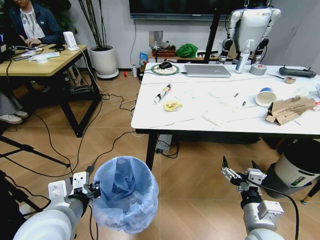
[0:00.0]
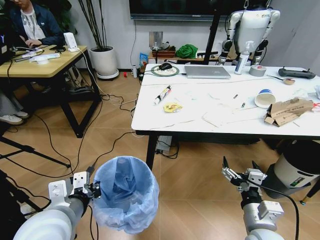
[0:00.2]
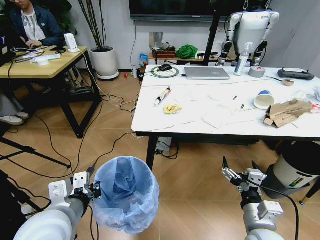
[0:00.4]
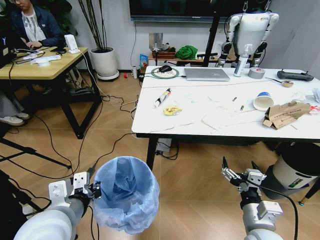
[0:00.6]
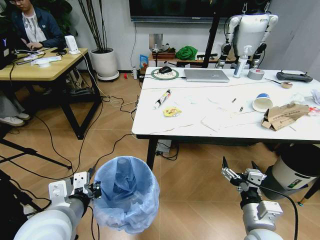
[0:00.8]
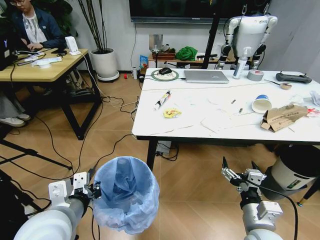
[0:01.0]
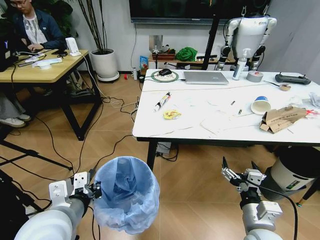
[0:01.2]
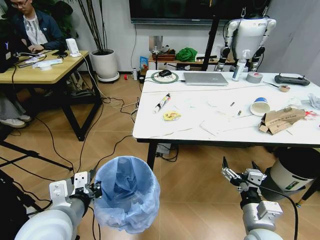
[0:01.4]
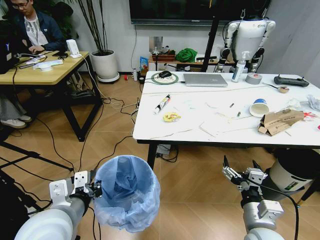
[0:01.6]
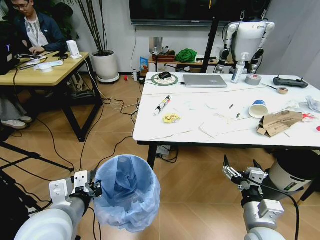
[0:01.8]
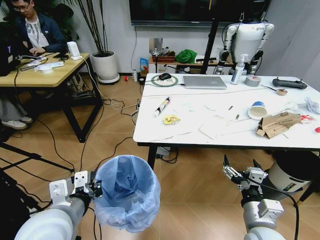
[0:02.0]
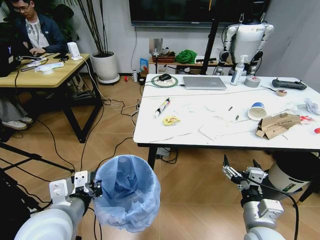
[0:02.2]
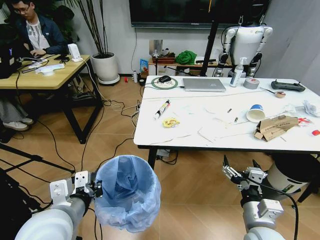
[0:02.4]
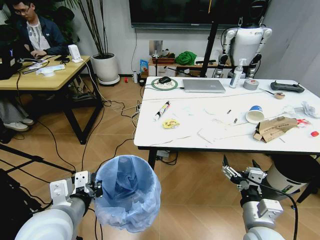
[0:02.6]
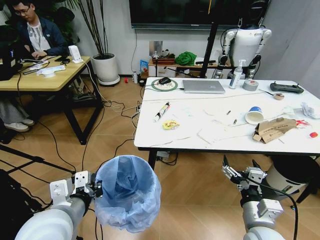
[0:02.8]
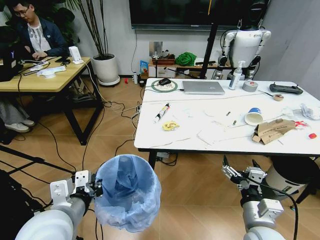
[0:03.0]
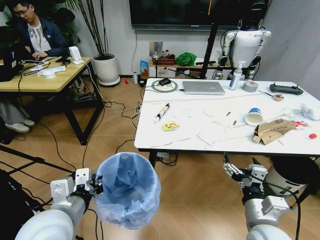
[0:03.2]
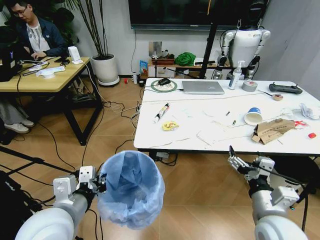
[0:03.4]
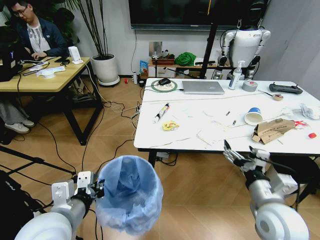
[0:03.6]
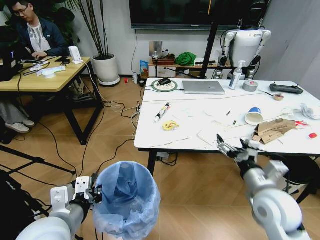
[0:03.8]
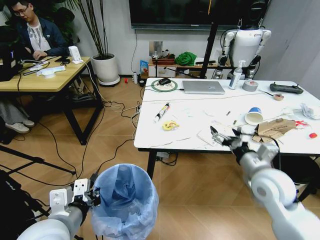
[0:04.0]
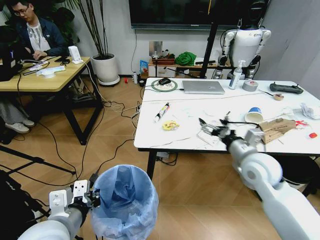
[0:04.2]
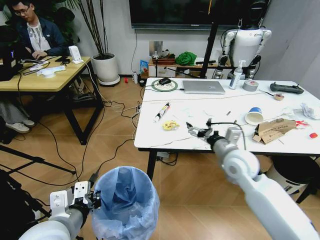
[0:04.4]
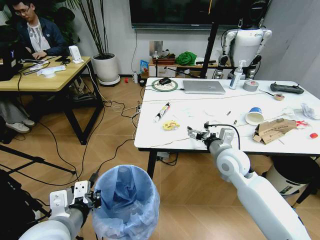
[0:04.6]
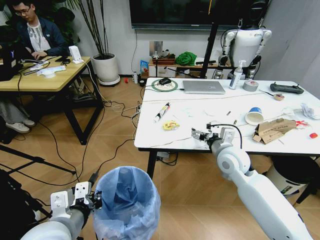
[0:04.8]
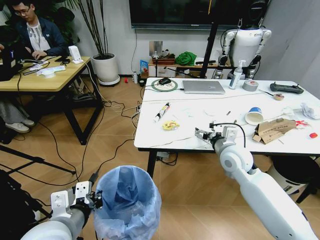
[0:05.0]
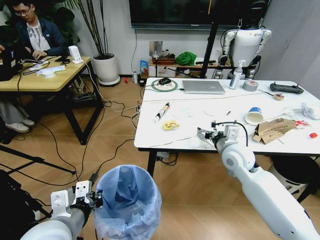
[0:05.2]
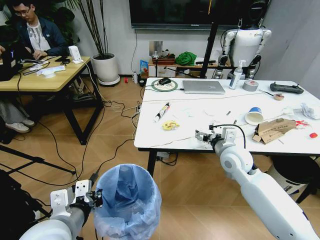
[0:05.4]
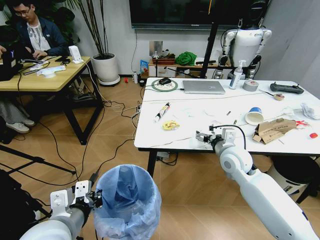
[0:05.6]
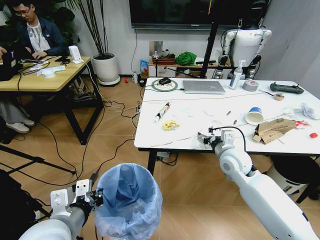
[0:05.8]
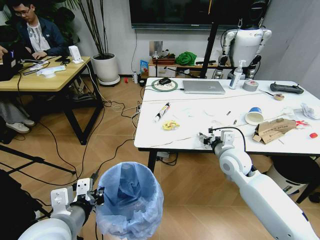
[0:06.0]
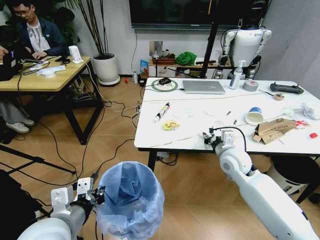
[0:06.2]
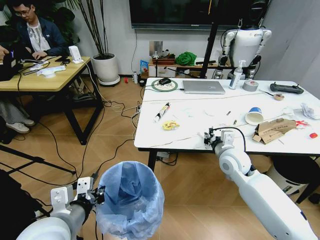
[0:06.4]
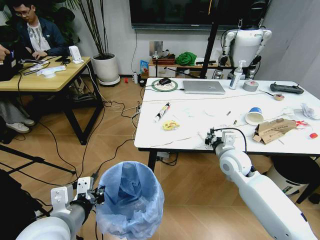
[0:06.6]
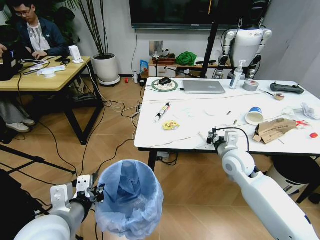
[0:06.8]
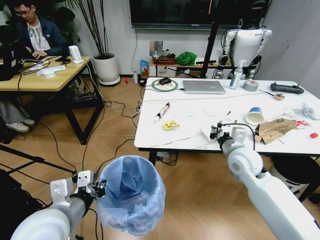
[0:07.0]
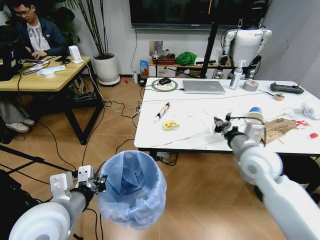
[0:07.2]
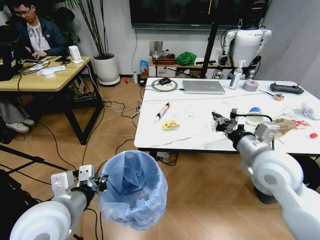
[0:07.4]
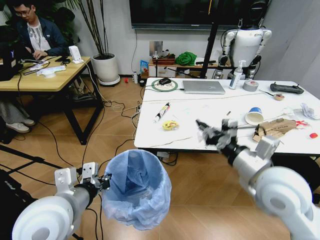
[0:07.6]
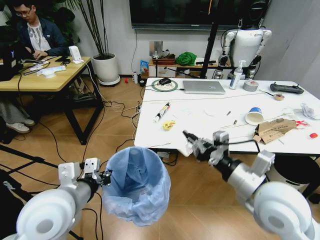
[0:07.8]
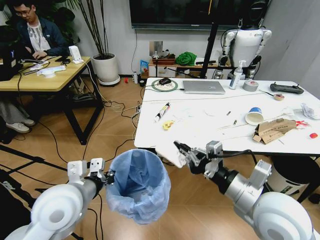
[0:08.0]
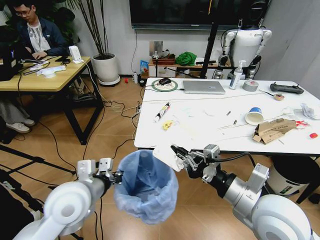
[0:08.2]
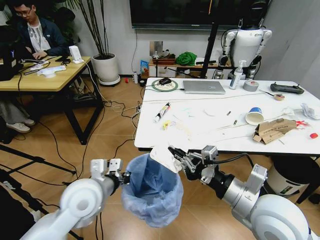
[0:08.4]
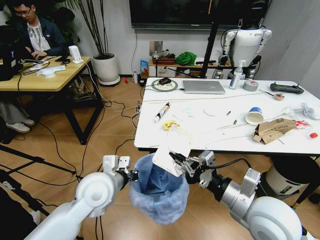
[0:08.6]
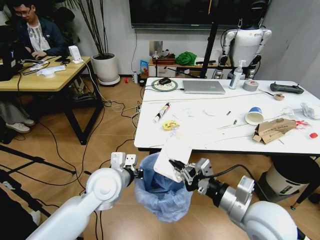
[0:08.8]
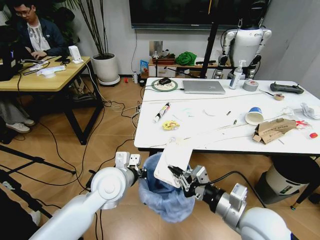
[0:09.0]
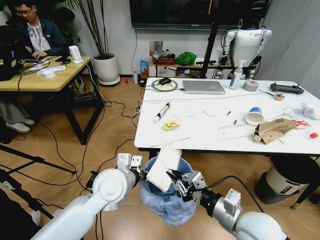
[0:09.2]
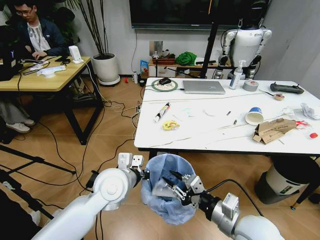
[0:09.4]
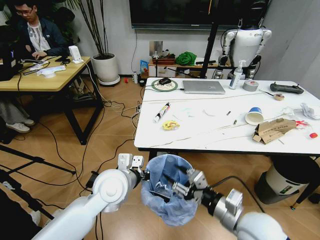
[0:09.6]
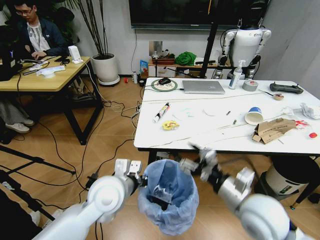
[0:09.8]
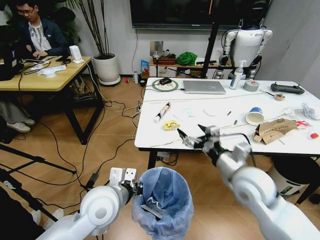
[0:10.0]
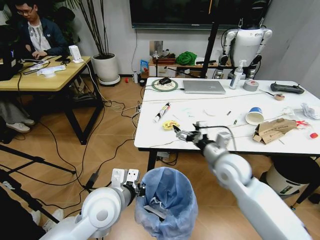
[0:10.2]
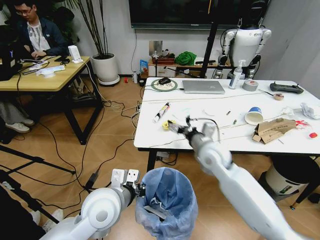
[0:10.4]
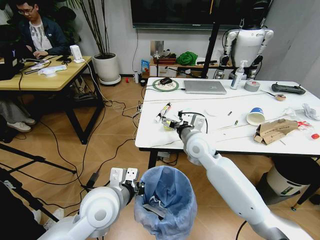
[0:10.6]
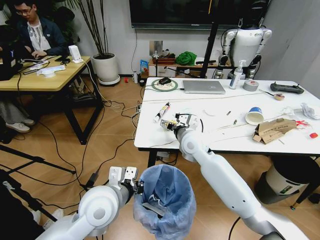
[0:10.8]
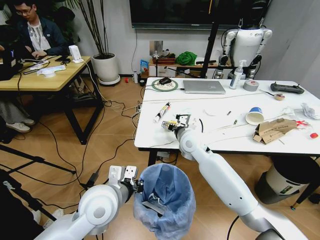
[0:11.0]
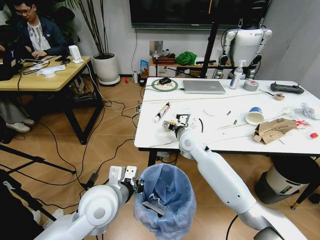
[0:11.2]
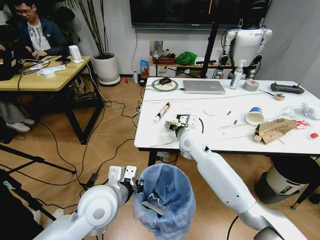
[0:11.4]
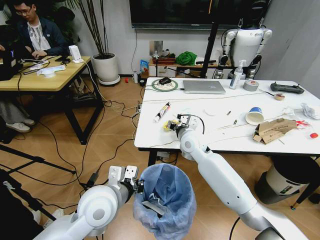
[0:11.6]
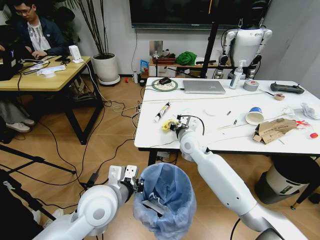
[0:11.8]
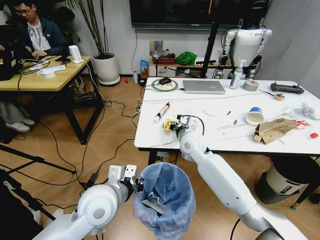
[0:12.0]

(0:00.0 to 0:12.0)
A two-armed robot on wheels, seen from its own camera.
Task of the whole recording: Pick up the trash bin and place the trash from the table into it.
0:03.0 - 0:04.4: The right gripper goes approximately 20 cm forward.
0:04.4 - 0:06.0: The right gripper closes.
0:06.0 - 0:07.6: The right gripper travels backward and upward by approximately 20 cm, and closes its fingers.
0:07.6 - 0:09.0: The right gripper travels downward and backward by about 10 cm, while the left gripper is displaced forward, to the right and downward by roughly 15 cm.
0:09.0 - 0:10.4: The left gripper moves backward, roughly 5 cm. The right gripper heads forward, covering some 20 cm, and opens up.
0:10.4 - 0:12.0: The right gripper goes roughly 5 cm forward, and closes up.

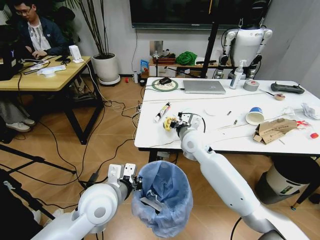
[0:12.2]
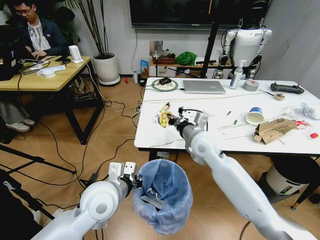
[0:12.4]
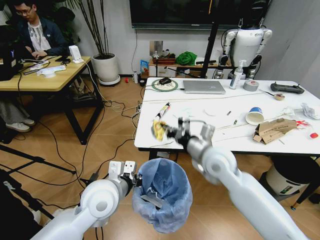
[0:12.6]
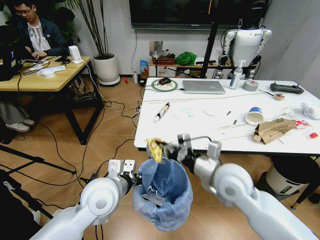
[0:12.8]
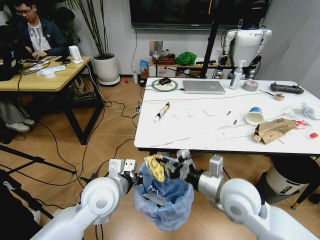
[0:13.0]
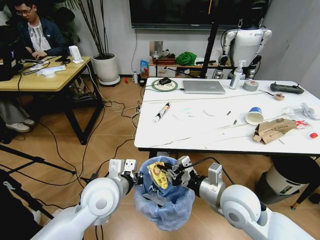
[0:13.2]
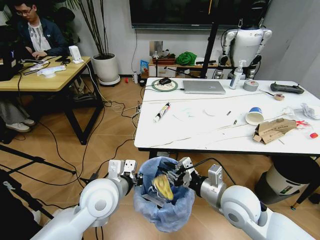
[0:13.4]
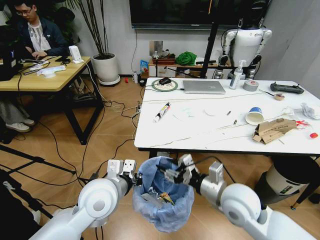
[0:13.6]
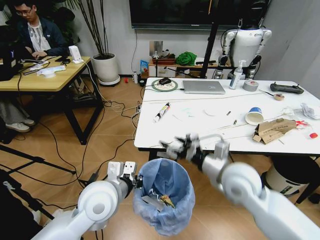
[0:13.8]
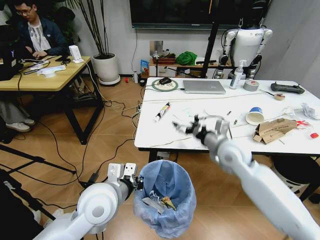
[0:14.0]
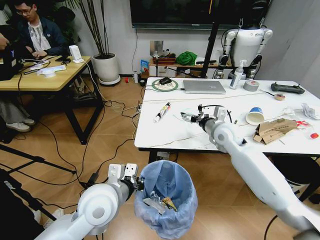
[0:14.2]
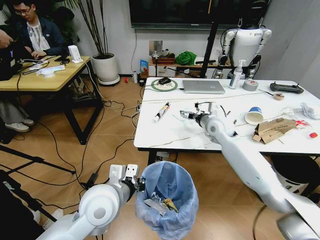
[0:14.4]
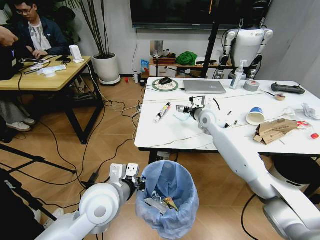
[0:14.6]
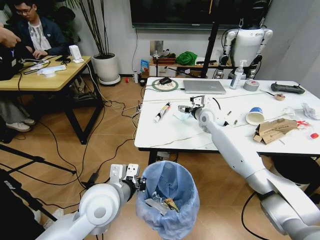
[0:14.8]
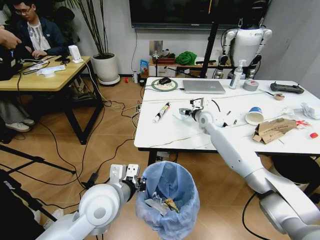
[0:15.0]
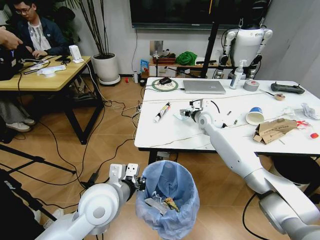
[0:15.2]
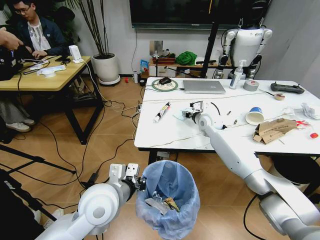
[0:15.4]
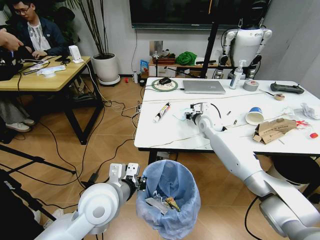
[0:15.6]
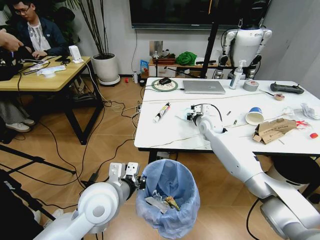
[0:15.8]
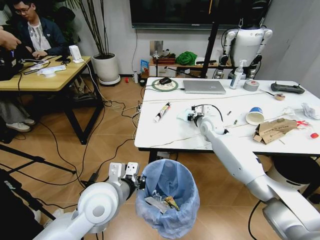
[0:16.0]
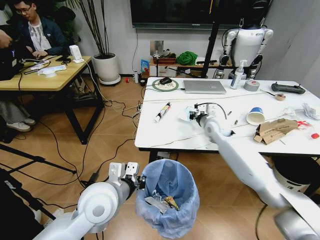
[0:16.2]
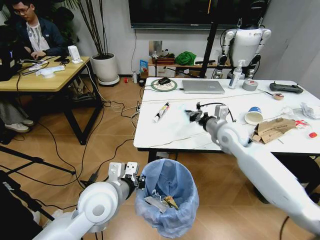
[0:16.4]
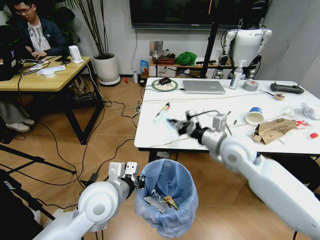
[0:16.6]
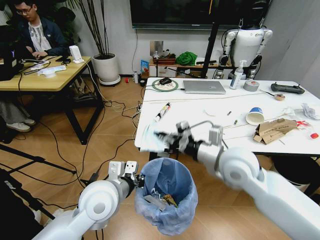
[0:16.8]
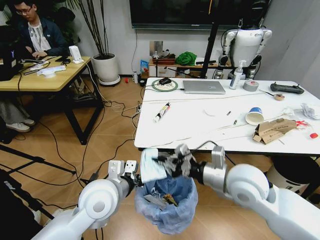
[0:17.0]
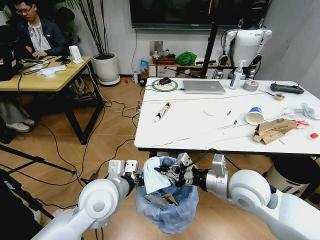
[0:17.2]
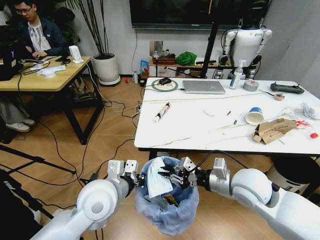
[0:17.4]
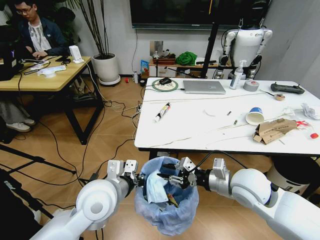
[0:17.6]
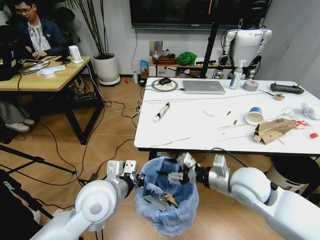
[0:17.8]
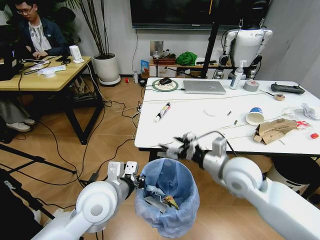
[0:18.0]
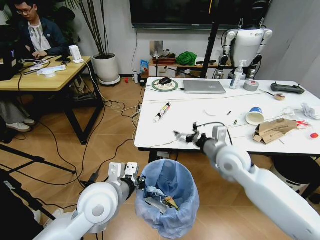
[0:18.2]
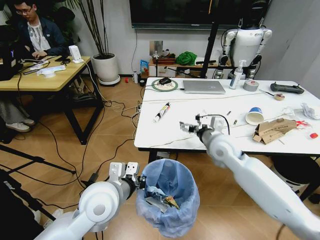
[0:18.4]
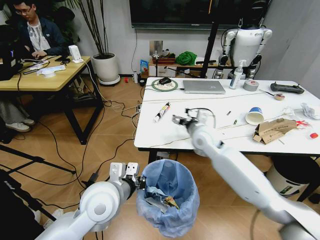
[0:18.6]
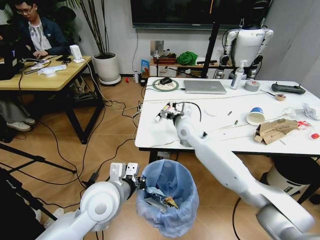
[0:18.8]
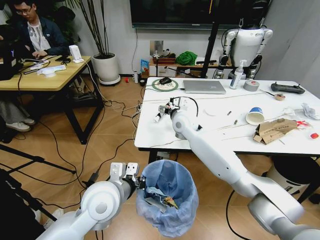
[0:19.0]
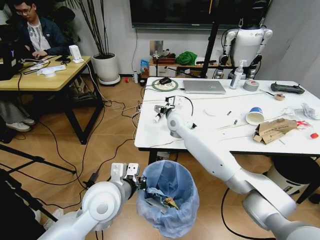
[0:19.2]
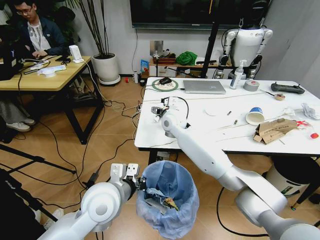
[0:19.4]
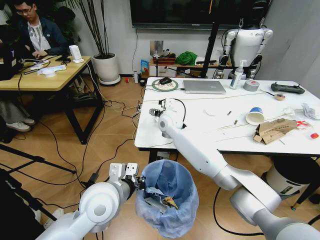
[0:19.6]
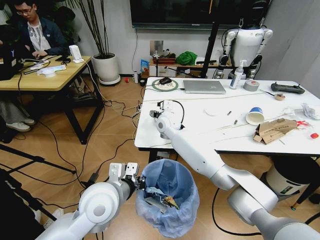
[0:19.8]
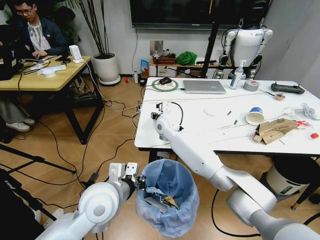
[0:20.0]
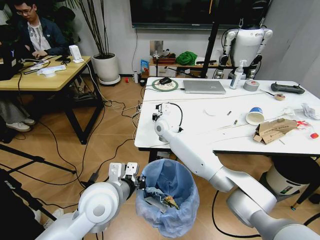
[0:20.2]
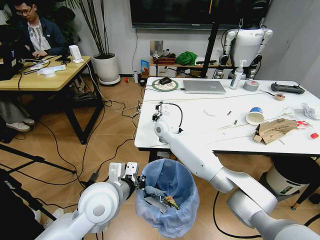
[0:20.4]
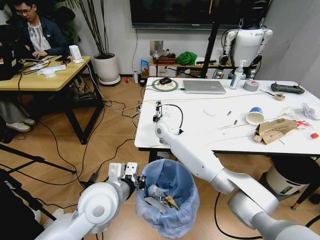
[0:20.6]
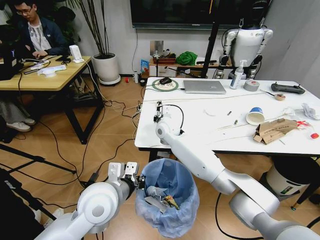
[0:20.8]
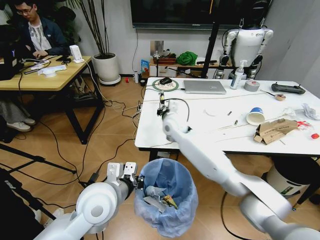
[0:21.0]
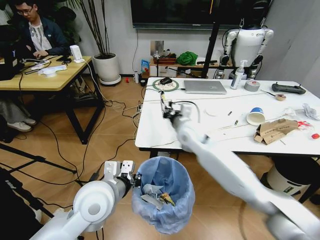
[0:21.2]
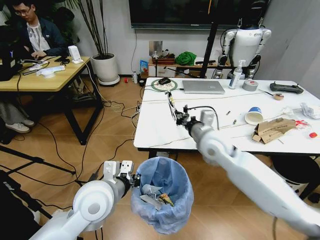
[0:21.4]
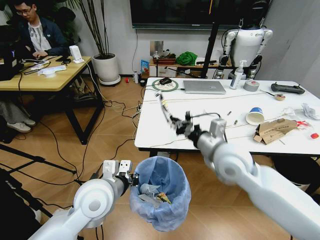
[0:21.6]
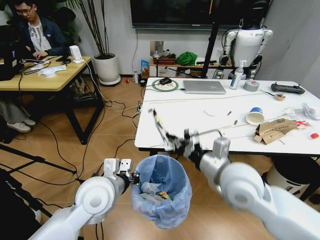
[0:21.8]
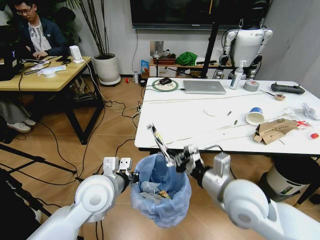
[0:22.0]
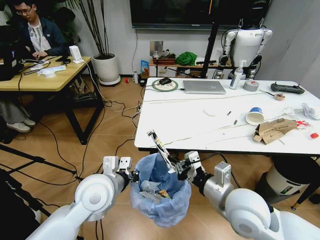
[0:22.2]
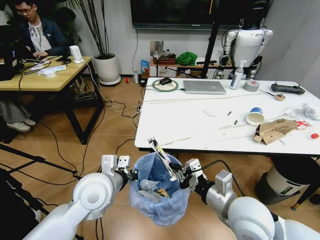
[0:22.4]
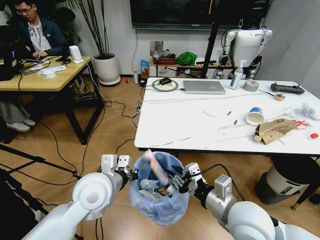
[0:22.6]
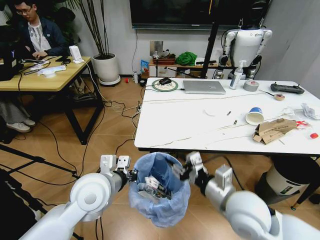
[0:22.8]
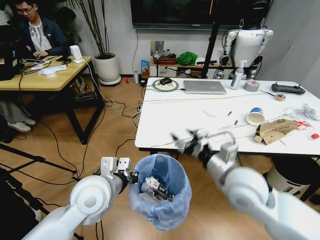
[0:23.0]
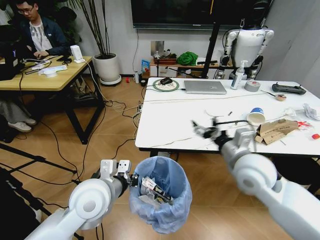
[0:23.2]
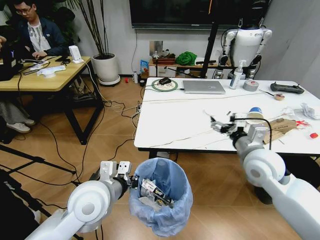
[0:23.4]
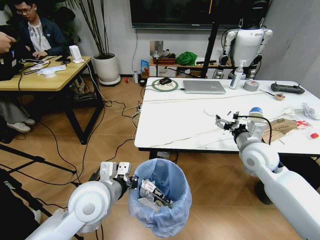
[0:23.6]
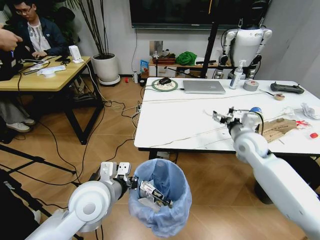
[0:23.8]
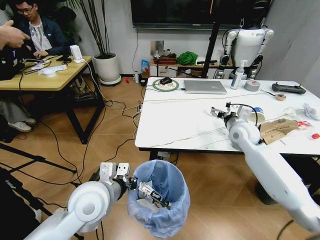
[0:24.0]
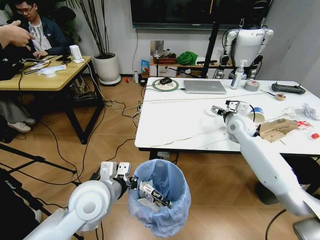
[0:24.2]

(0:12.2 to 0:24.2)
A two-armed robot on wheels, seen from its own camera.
Task of the whole recording: Pick up the trash bin and place the trash from the table into it.
0:12.2 - 0:13.8: The right gripper moves backward and to the right, about 15 cm, and opens.
0:13.8 - 0:15.2: The right gripper goes approximately 30 cm forward.
0:15.2 - 0:16.6: The right gripper moves backward, some 20 cm, and closes its fingers.
0:16.6 - 0:18.2: The right gripper travels backward and back again, some 10 cm each way, and opens.
0:18.2 - 0:19.8: The right gripper goes about 25 cm to the left and forward.
0:19.8 - 0:21.2: The right gripper heads backward and to the right, covering approximately 10 cm, and closes.
0:21.2 - 0:22.6: The right gripper goes roughly 25 cm backward.
0:22.6 - 0:24.2: The right gripper travels forward by approximately 35 cm, and opens its fingers.
